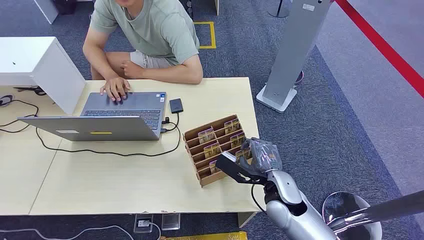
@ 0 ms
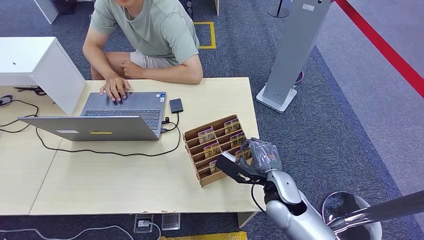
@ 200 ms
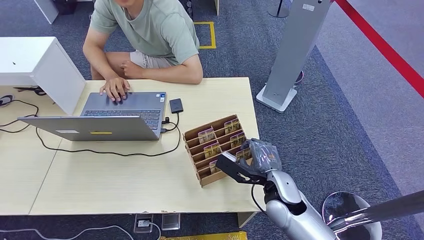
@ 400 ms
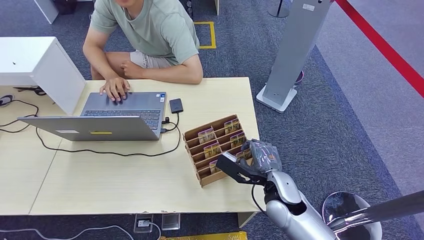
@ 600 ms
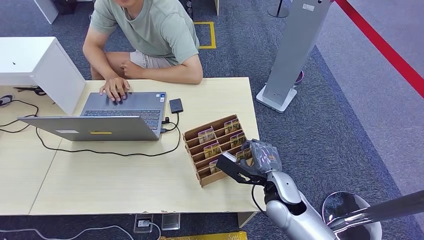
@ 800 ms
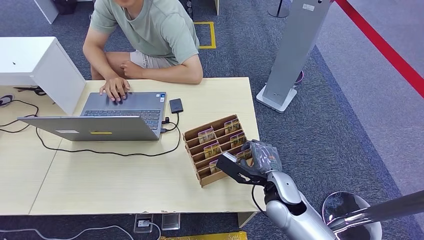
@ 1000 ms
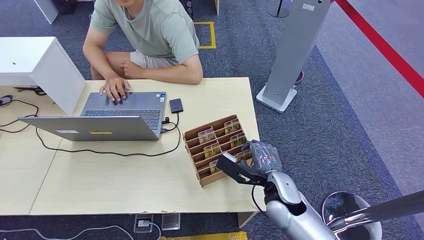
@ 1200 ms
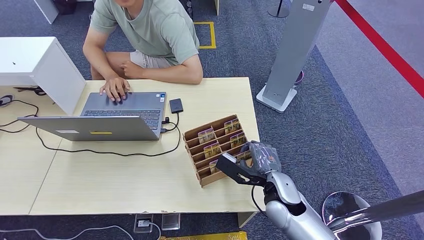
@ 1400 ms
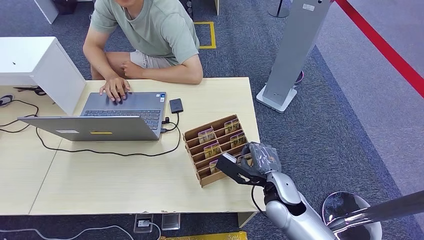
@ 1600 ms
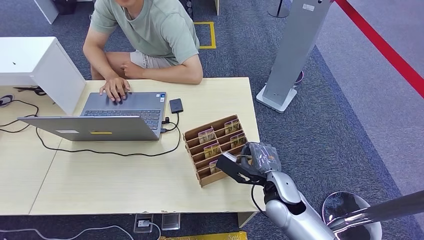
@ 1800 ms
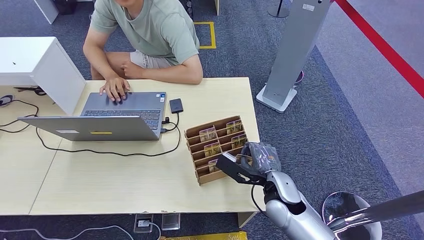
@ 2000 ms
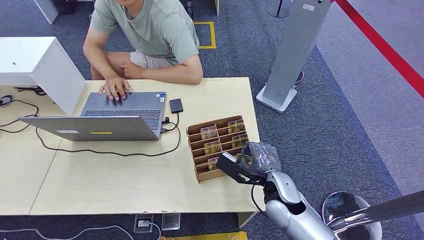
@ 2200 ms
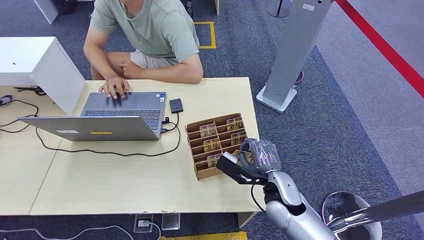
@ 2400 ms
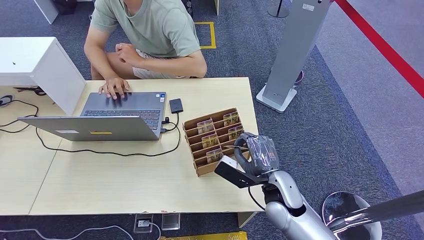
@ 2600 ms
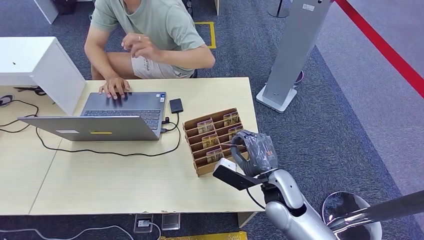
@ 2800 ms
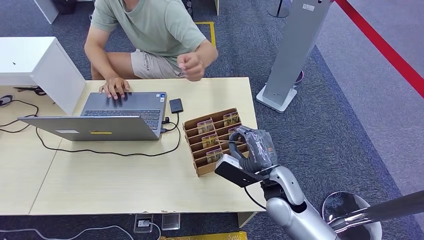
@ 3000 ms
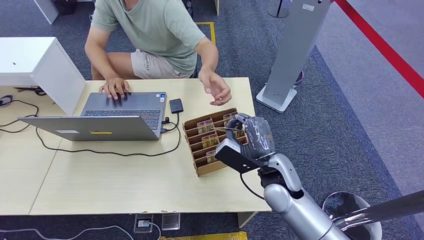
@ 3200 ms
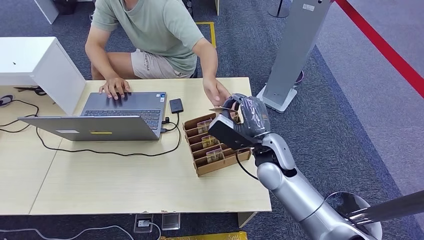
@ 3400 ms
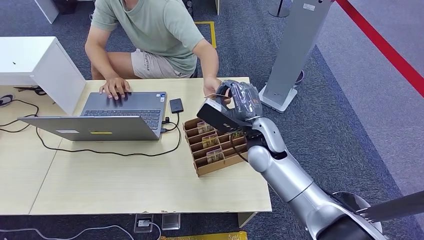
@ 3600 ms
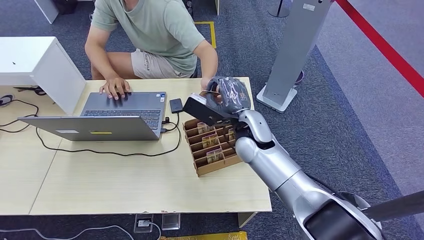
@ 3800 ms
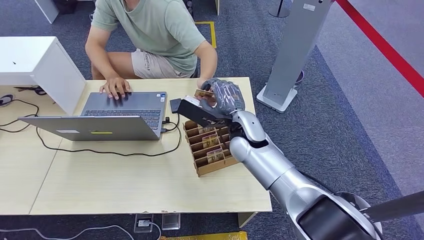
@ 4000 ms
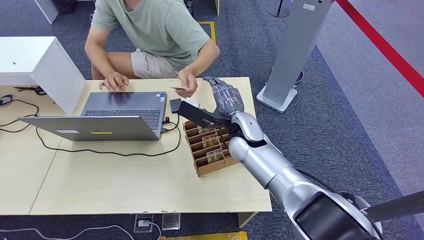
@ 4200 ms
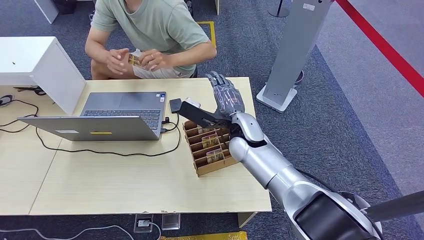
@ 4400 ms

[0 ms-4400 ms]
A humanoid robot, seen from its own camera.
Step, 0 ms to 2800 ms: Pick up the key card from the card box.
Step, 3400 ms to 4400 ms: Hand the key card to the target.
3000 ms to 4400 ms: The right hand heads forward, to the left and upward, covering roughly 15 cm.

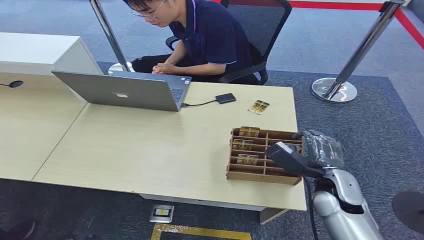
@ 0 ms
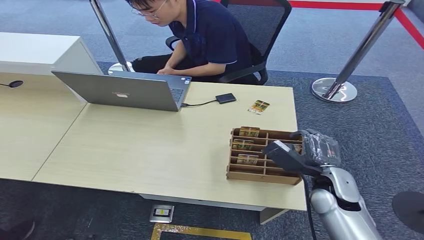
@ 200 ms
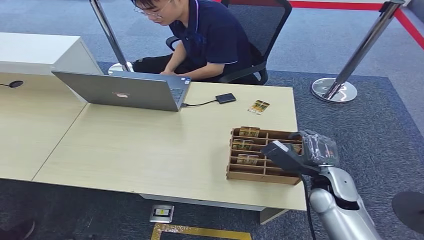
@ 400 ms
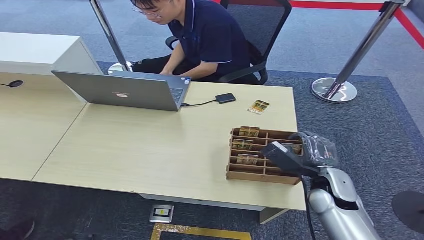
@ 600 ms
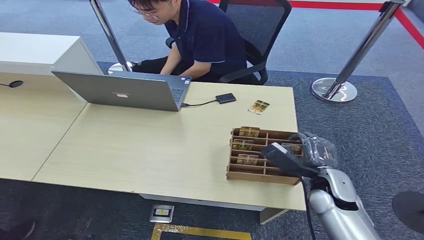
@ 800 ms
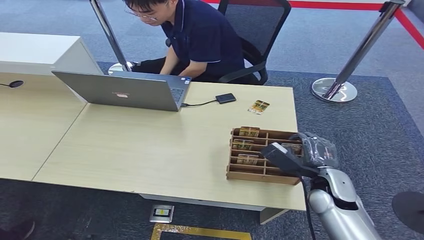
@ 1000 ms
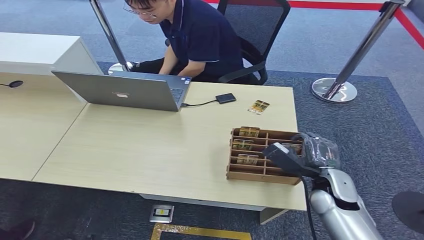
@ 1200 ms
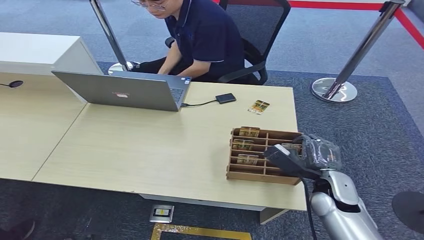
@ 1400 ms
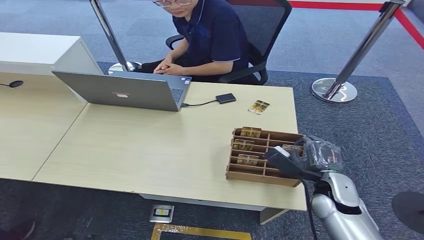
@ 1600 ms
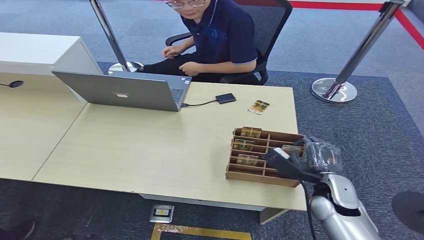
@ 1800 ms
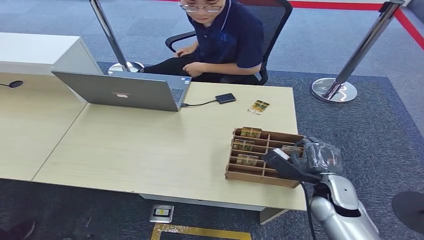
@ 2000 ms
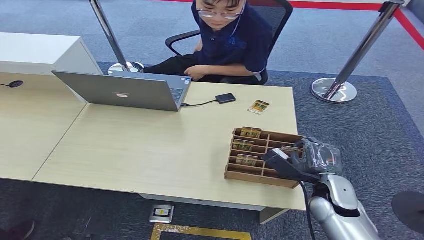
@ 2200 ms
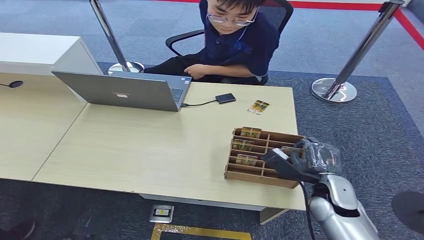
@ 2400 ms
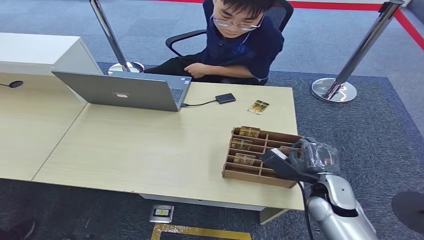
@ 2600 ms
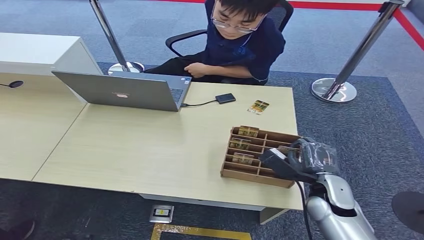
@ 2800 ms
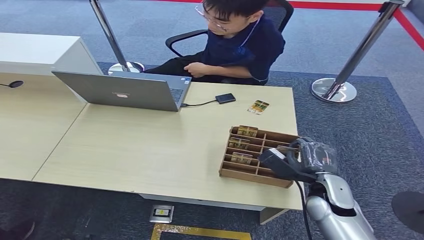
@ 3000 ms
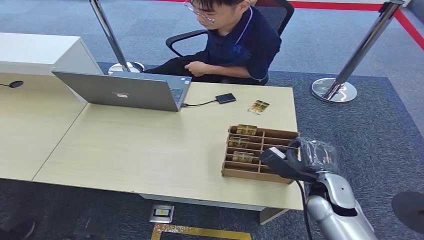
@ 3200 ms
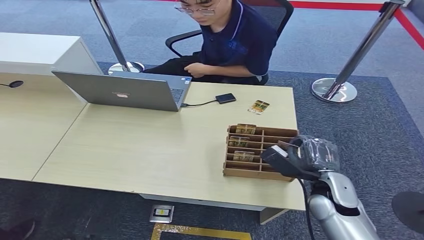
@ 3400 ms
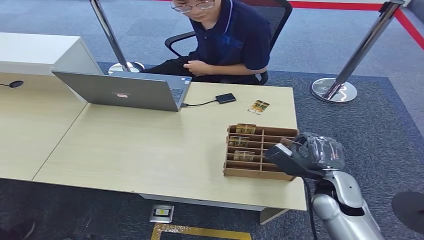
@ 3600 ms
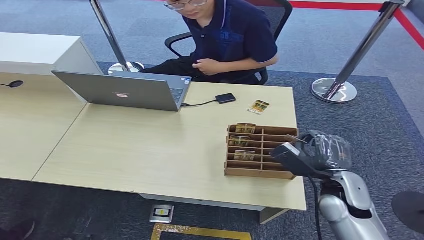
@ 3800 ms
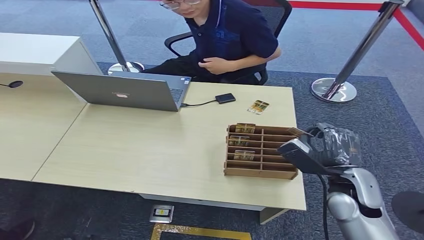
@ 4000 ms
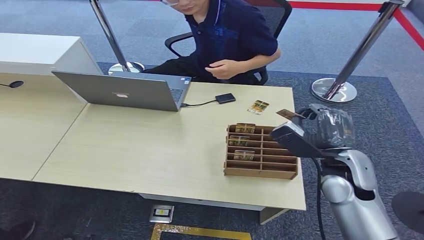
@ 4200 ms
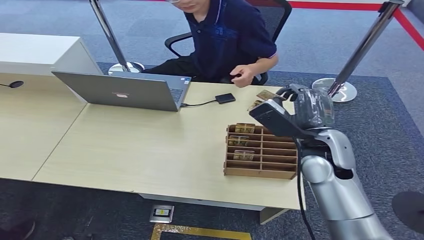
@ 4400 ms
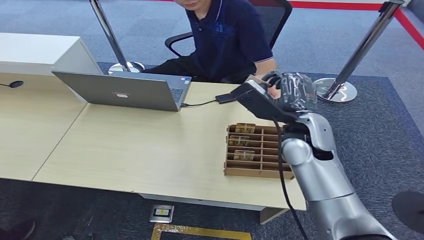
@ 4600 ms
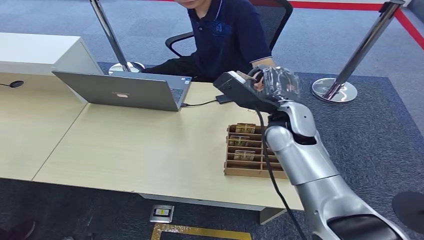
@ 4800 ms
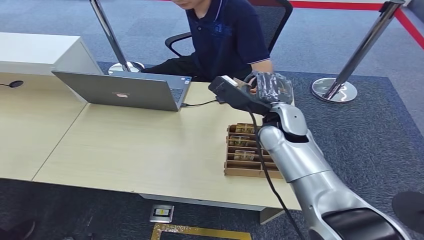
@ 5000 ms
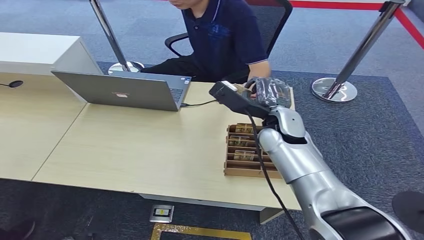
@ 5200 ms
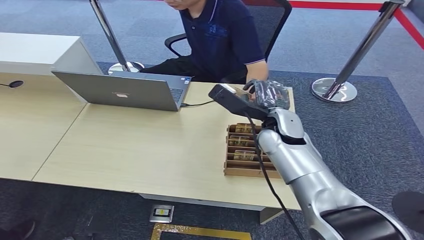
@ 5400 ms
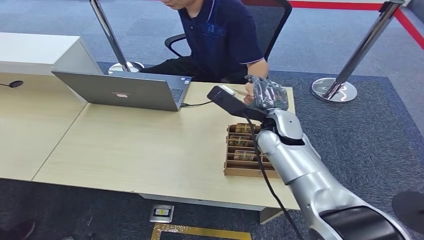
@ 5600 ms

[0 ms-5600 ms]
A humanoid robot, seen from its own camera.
Step, 0 ms to 4000 ms: Pick up the key card from the card box.
Step, 4200 ms to 5600 ms: Hand the key card to the target.
1400 ms to 2800 ms: The hands stay close to where they were, moving slightly.
2800 ms to 4200 ms: The right hand is displaced upward and forward by about 10 cm.
4200 ms to 5600 ms: The right hand shifts some 15 cm to the left and forward.
